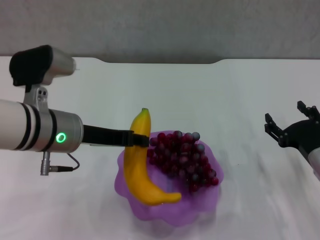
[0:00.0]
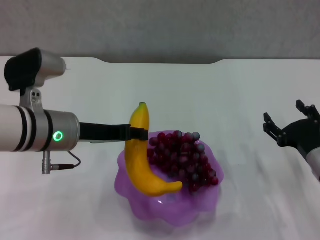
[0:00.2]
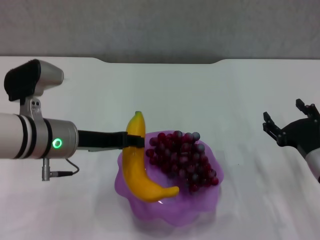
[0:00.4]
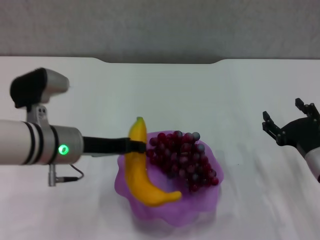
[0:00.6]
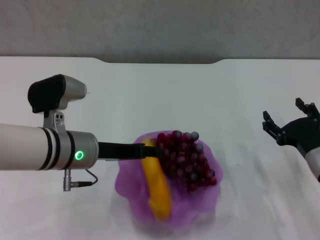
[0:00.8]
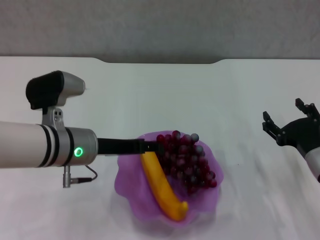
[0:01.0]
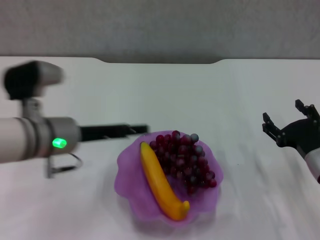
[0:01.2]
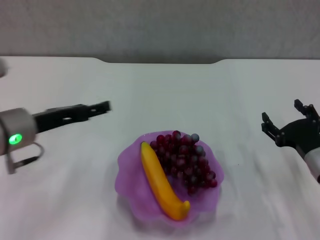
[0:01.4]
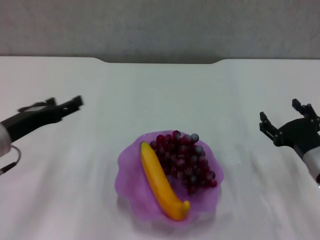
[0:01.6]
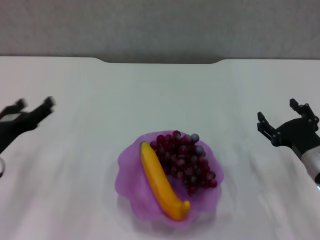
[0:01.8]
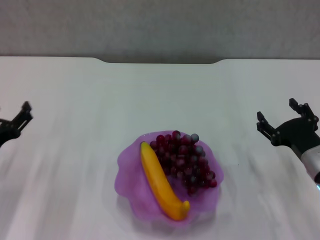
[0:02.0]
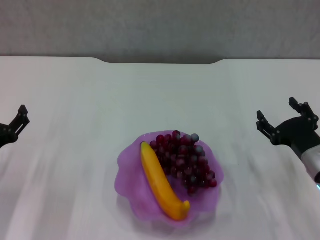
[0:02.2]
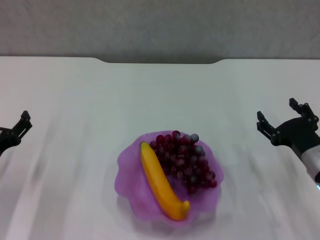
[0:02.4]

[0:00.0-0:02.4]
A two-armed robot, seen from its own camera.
0:00.0 to 0:01.2: The left gripper opens.
0:01.2 to 0:02.4: The left gripper goes about 15 cm to the left, downward and backward.
